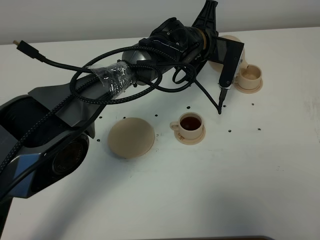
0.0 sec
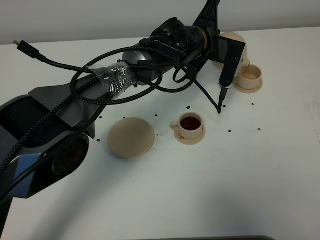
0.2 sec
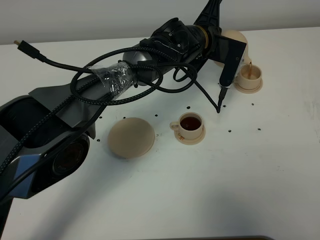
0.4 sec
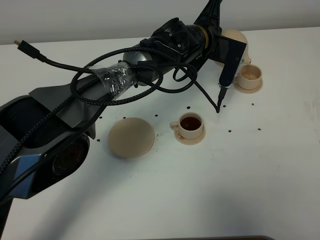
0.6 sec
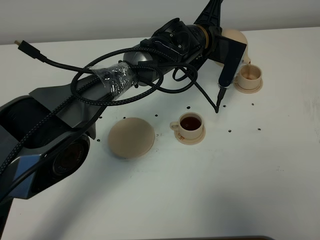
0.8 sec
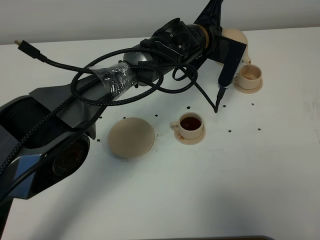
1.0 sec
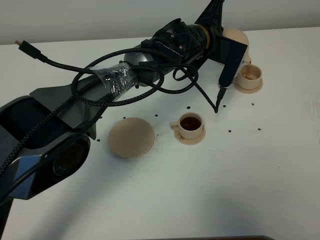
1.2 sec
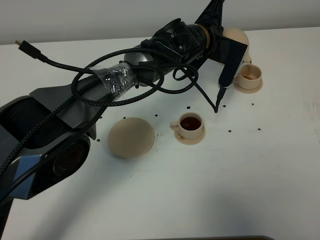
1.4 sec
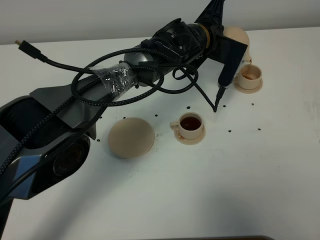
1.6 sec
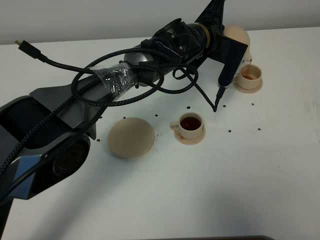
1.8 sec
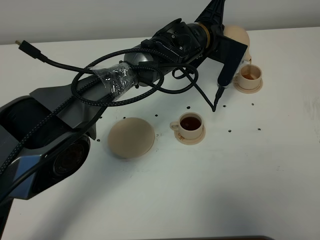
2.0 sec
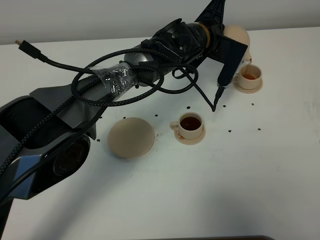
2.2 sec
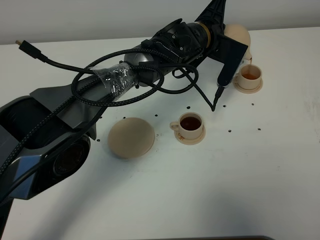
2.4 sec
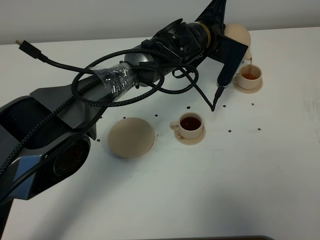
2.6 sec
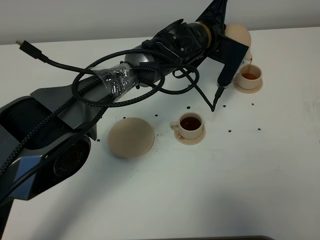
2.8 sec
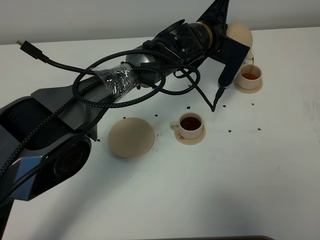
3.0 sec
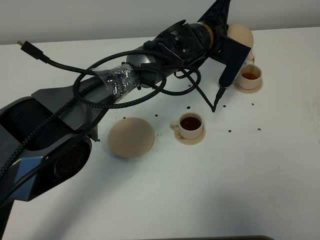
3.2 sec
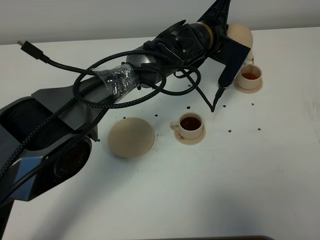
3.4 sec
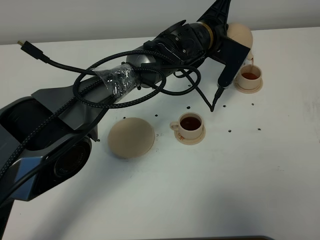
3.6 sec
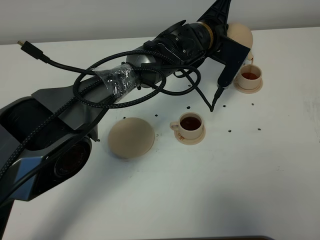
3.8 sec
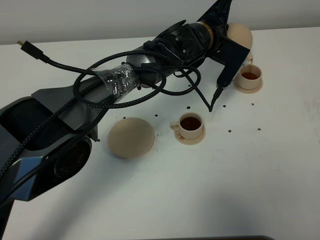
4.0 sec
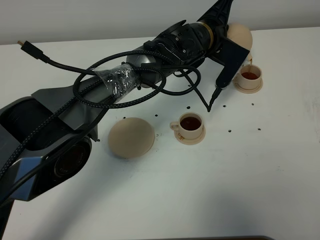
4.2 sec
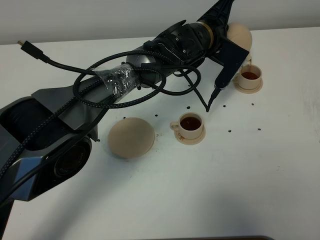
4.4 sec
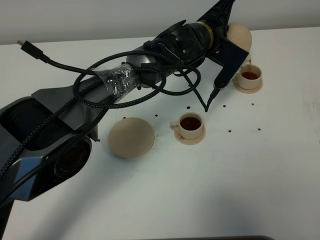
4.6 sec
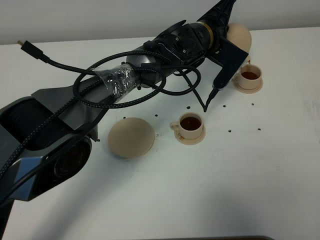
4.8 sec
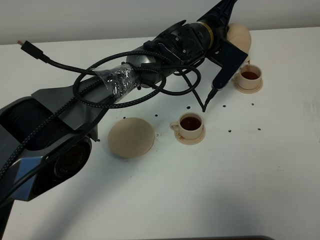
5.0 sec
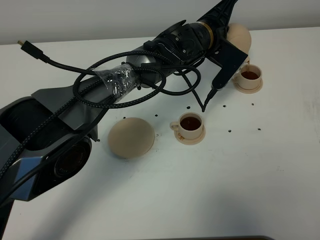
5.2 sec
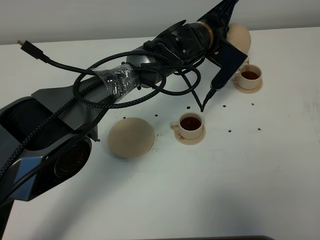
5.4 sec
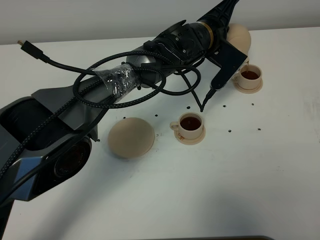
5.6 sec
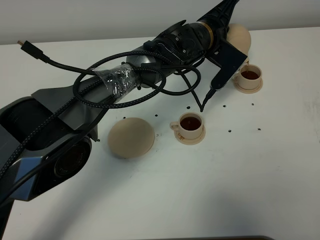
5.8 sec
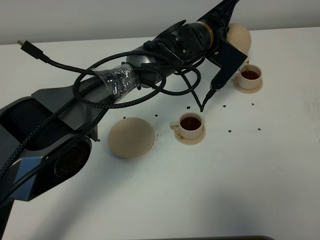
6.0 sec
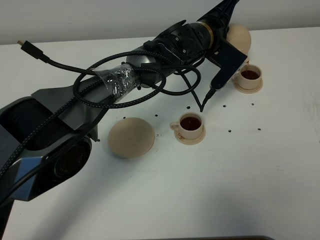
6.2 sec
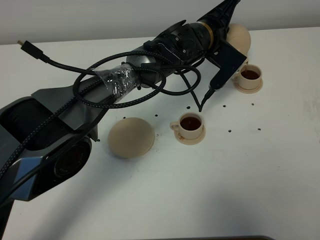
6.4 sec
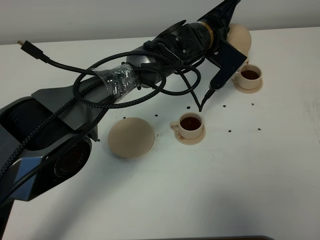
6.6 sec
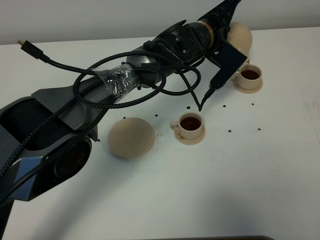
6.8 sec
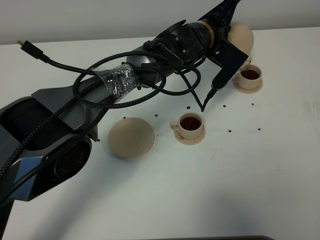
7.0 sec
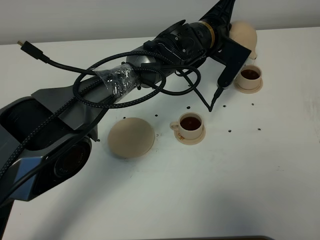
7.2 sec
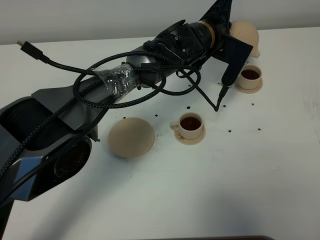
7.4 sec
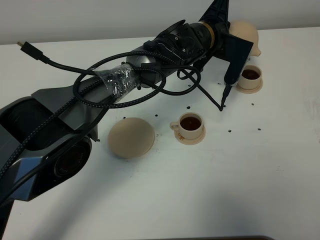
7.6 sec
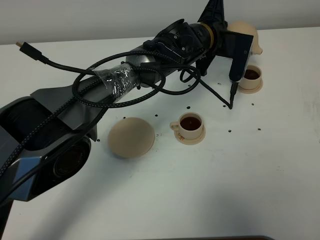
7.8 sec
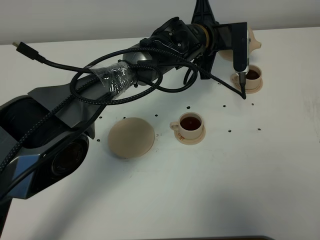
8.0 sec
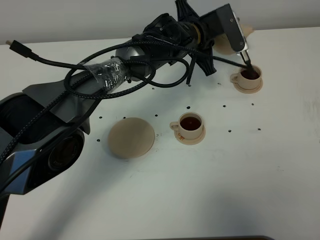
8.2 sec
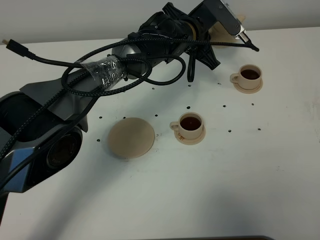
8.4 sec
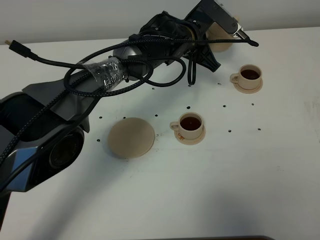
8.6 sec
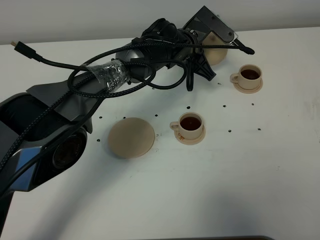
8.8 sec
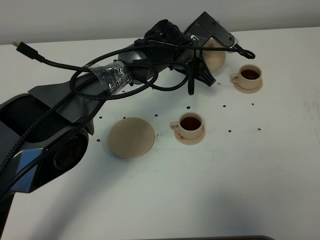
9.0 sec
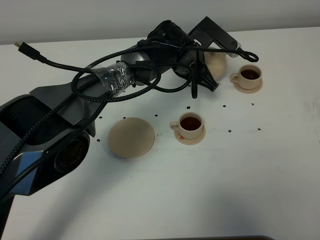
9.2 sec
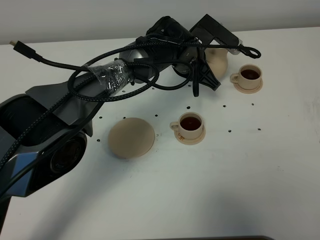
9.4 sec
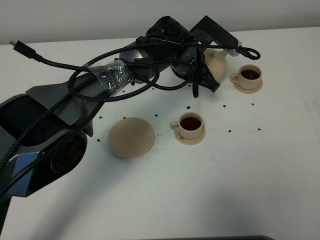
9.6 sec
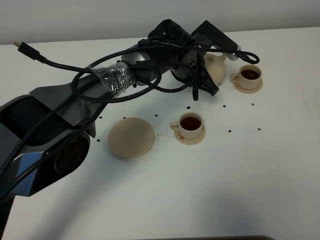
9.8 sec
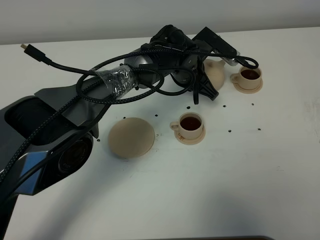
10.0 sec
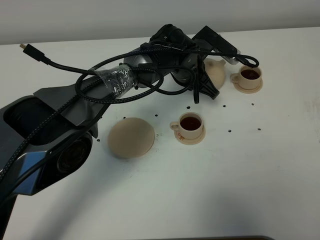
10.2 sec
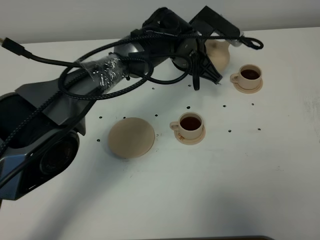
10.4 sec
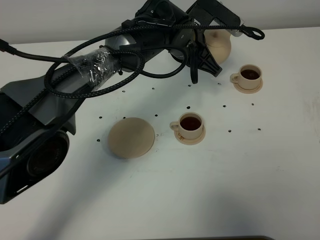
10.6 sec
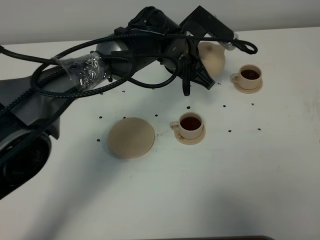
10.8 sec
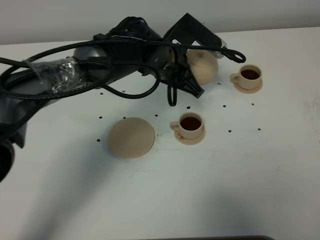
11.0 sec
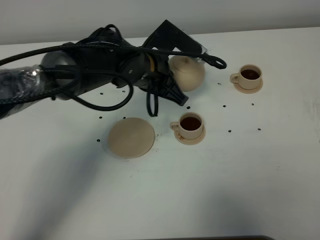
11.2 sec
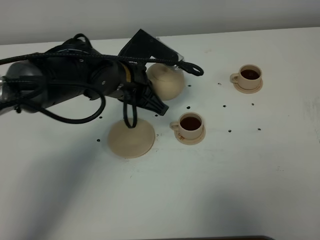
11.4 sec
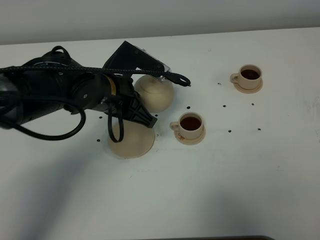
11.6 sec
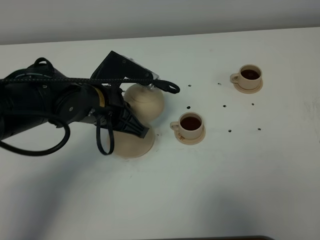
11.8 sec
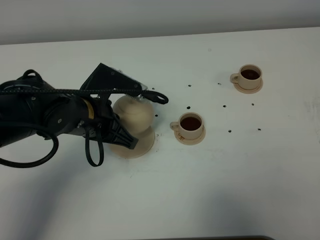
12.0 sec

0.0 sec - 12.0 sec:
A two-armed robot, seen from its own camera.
Task of the whole recording: grasp the brown teapot and pour the tea into the two brown teacups one by one, put the brown teapot back in its original place.
Step, 0.0 sec - 7.2 sec: Pour tea into the teacup with the left gripper.
0.0 sec - 1.6 sec: The grippers stay close to where they were, moving slightly.
1.6 sec - 3.0 sec: Both grippers stay put.
3.0 sec - 4.4 sec: There are only small adjustments of the grippers.
4.4 sec - 6.0 sec: Both grippers stay put.
6.0 sec - 7.6 sec: The grippers make only small movements.
7.6 sec - 9.0 sec: The left gripper moves approximately 5 cm.
9.0 sec - 10.4 sec: The grippers make only small movements.
10.4 sec - 12.0 sec: The left gripper heads to the left and backward, covering some 25 cm.

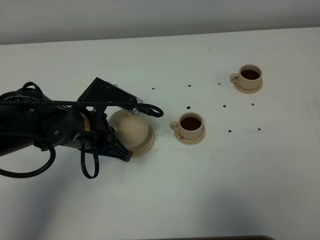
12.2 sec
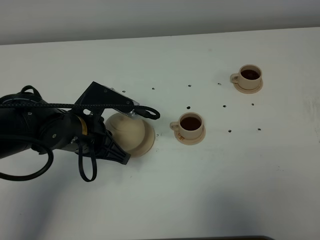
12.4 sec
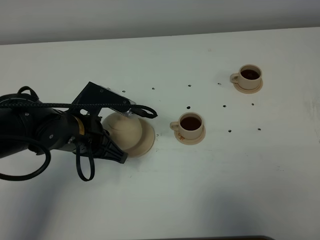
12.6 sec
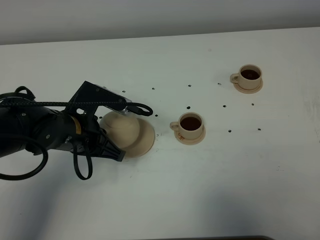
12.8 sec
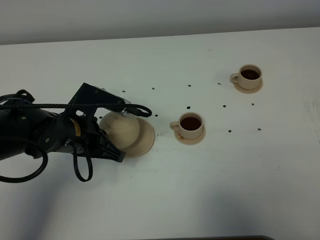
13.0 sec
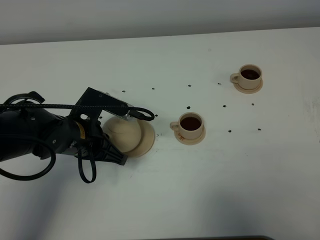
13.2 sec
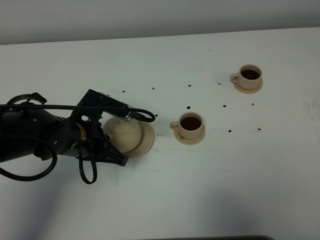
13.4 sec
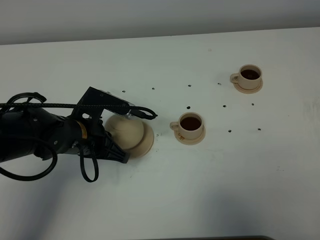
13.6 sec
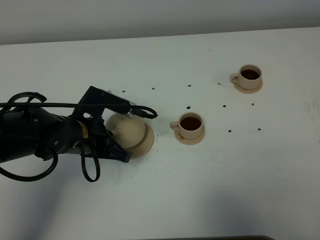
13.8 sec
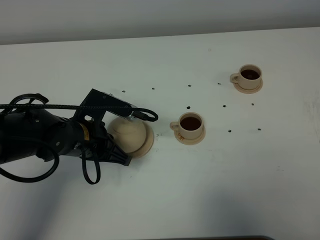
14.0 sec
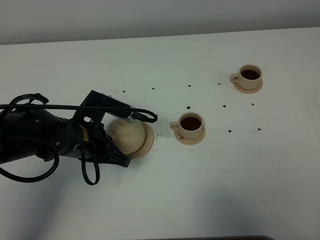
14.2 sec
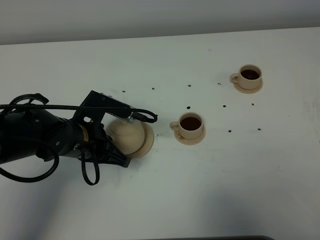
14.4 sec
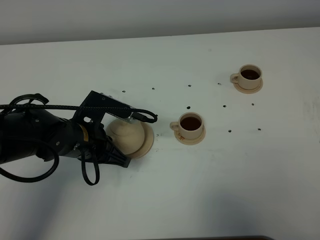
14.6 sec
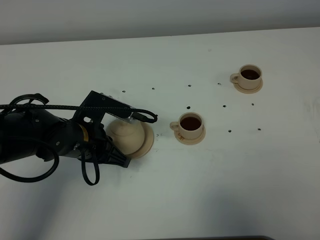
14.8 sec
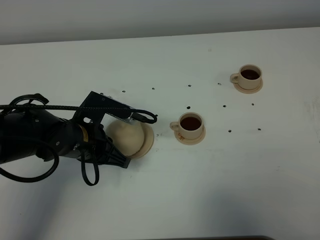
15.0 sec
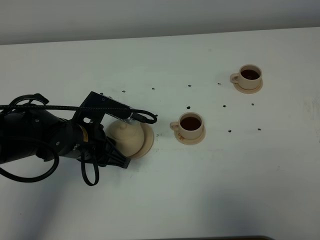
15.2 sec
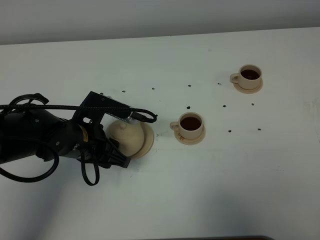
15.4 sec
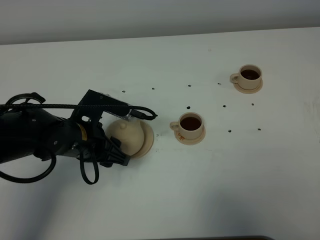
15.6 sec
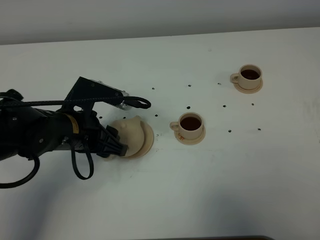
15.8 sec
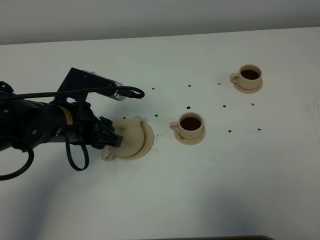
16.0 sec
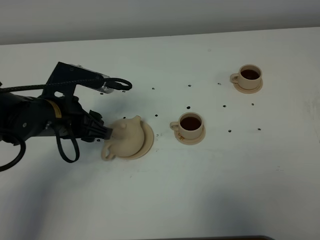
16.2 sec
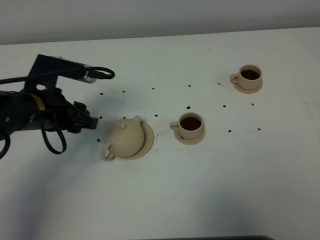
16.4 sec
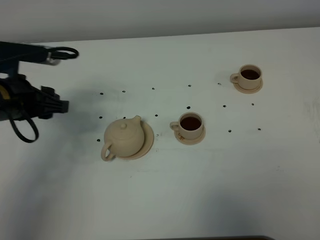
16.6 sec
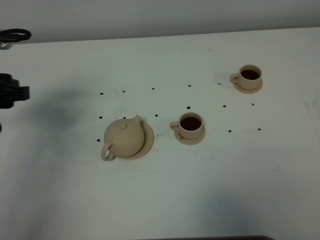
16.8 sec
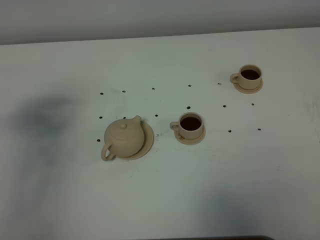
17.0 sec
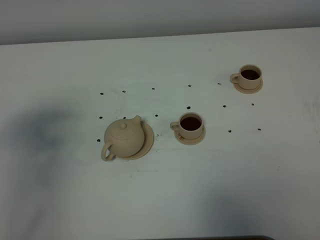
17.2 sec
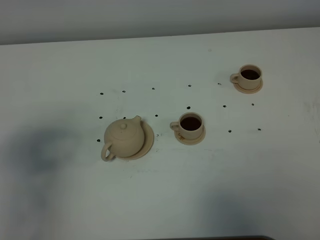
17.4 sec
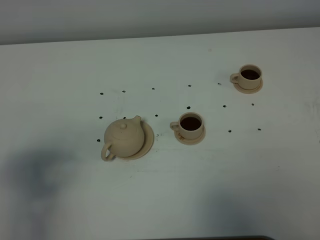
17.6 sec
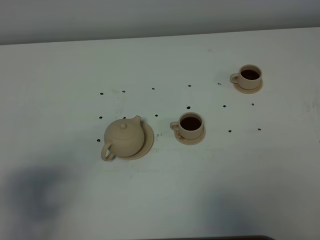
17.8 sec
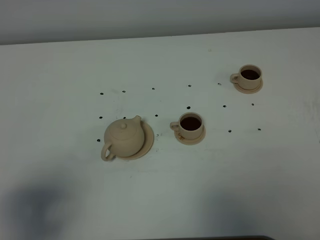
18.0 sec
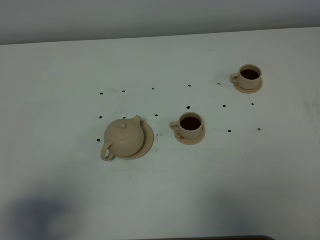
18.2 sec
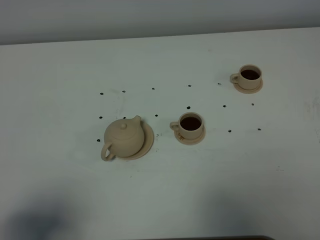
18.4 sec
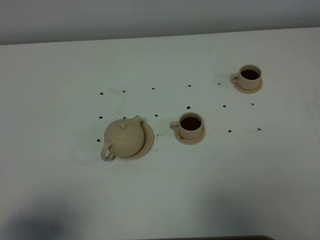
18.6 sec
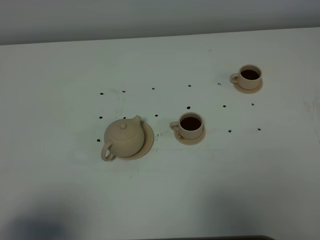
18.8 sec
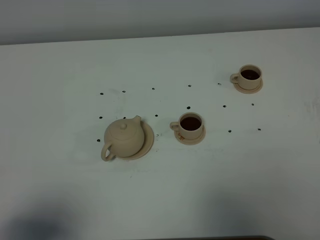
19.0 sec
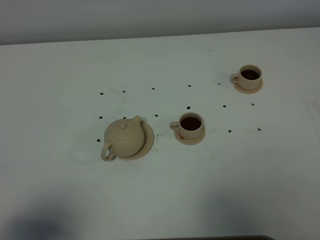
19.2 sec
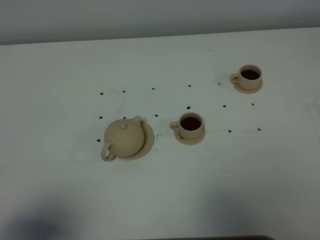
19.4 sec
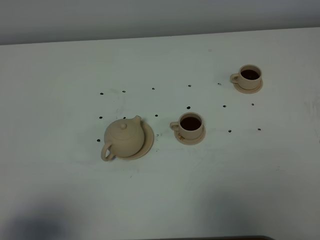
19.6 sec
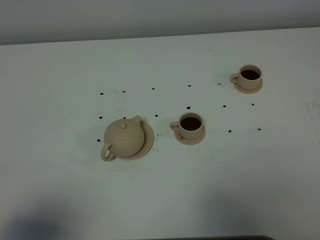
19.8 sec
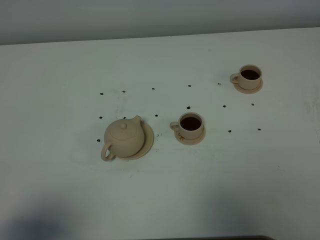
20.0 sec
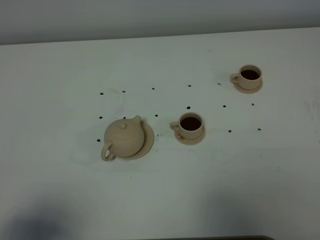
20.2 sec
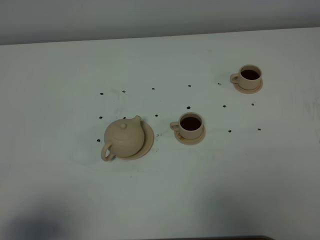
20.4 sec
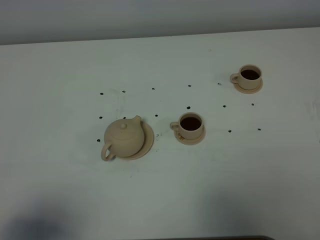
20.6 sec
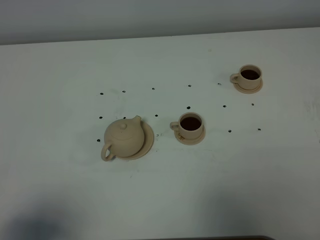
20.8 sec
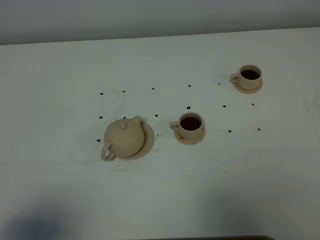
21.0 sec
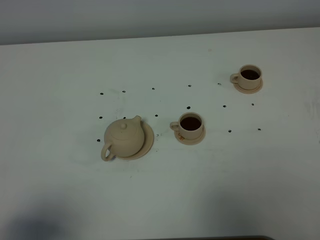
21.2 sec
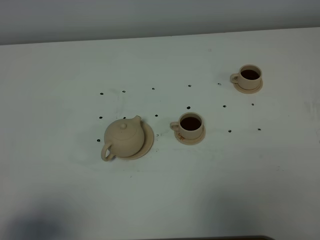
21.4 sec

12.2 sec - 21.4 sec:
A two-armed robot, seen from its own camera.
Task of the whole recording: grasp the brown teapot and pour the tea into the two brown teacups one by one, put the brown teapot back in its original place.
12.2 sec - 13.8 sec: There are only small adjustments of the grippers.
13.8 sec - 15.2 sec: The left gripper opens.
15.2 sec - 16.8 sec: The left gripper moves to the left and upward, approximately 20 cm, and opens its fingers.
16.8 sec - 18.4 sec: The left gripper shifts some 25 cm backward.
19.8 sec - 21.4 sec: Both grippers stay put.
